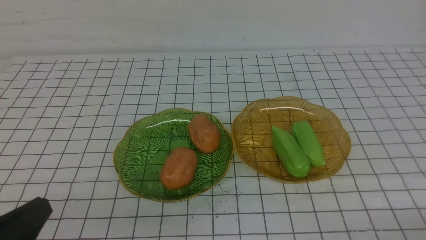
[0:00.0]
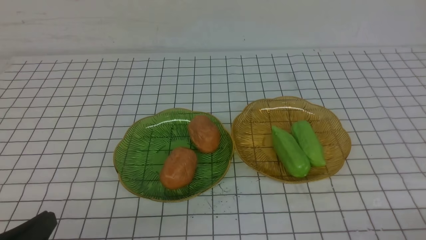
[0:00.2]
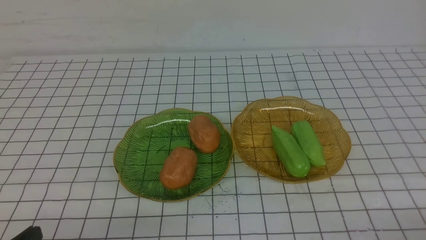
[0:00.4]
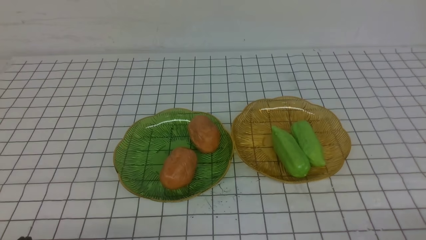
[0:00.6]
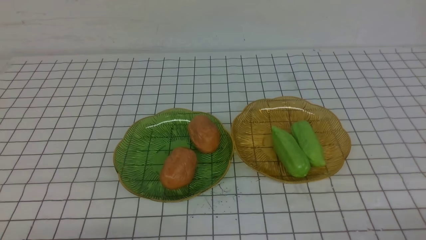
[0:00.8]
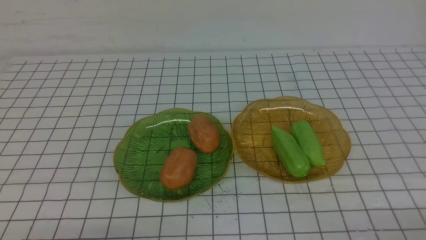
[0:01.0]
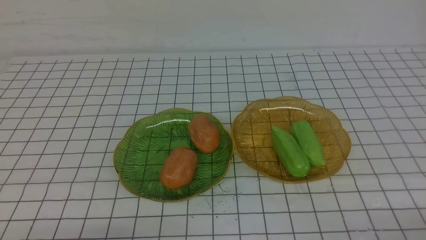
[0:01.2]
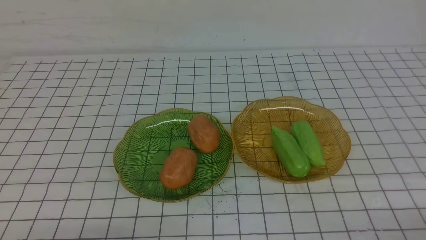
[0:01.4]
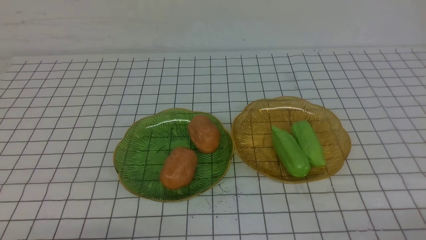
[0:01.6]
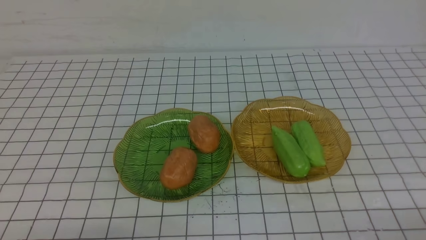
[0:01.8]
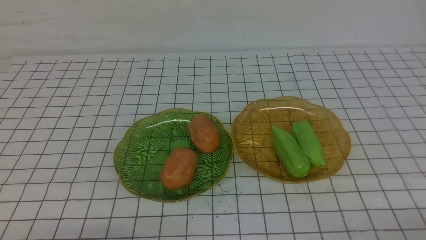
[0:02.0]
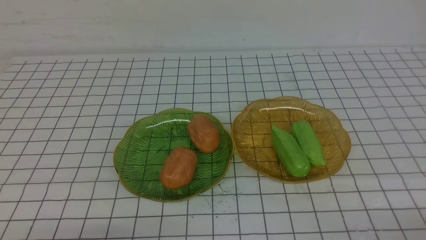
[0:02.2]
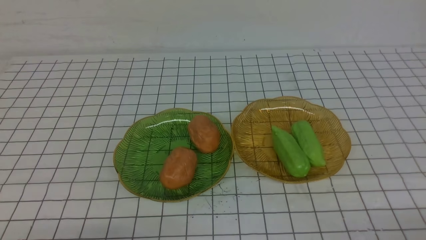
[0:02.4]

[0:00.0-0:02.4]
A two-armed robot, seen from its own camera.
0:00.0 to 0:01.2: The left gripper moves downward, approximately 10 cm.
0:01.2 to 0:02.4: The two grippers keep their place.

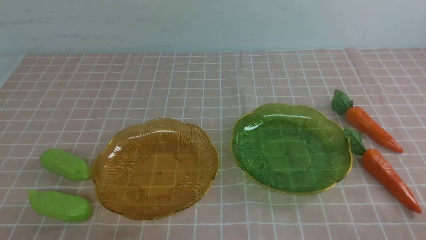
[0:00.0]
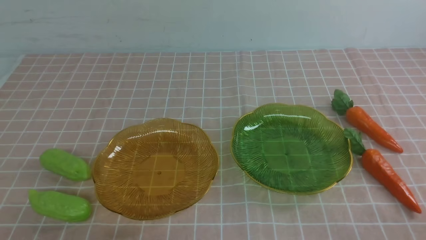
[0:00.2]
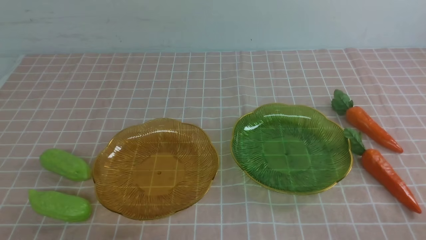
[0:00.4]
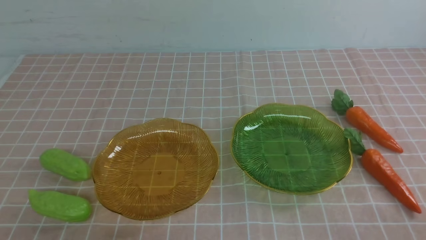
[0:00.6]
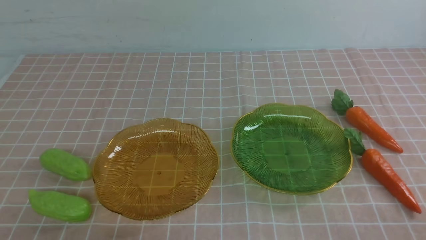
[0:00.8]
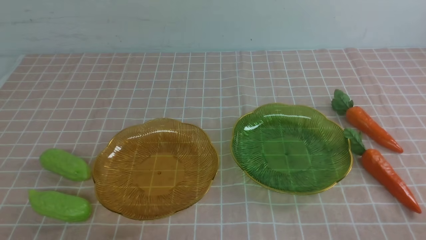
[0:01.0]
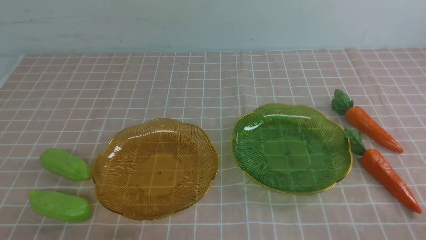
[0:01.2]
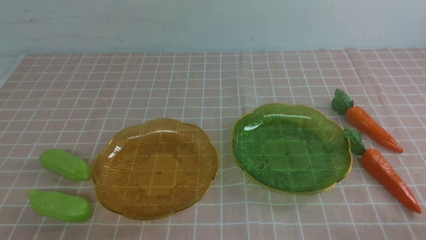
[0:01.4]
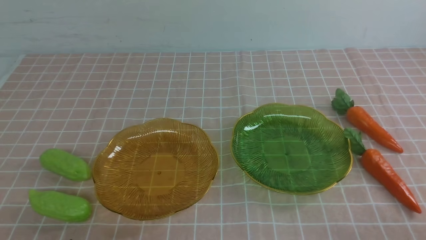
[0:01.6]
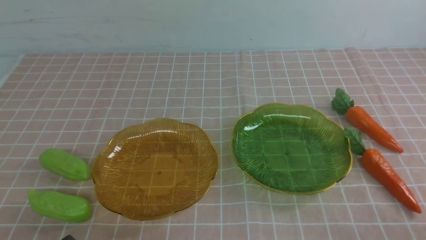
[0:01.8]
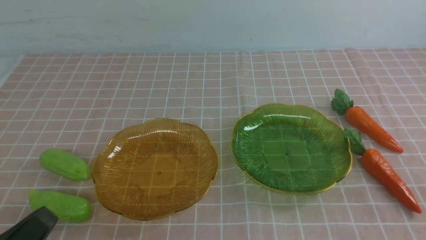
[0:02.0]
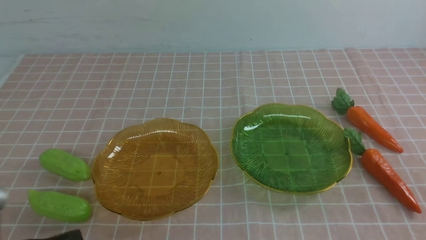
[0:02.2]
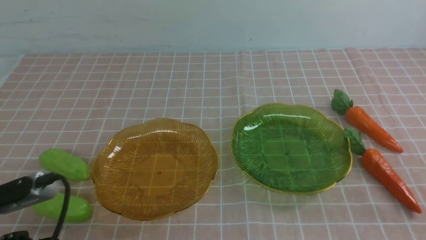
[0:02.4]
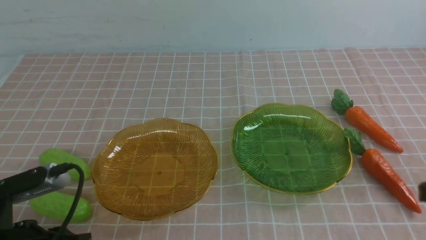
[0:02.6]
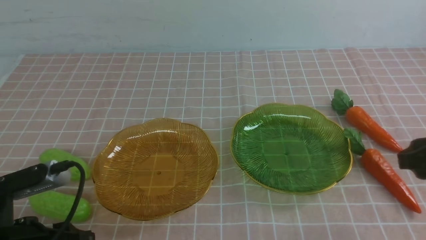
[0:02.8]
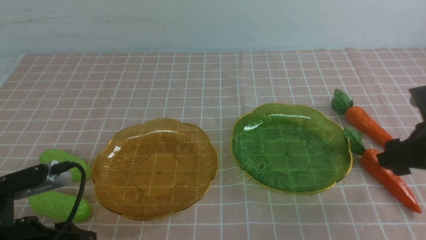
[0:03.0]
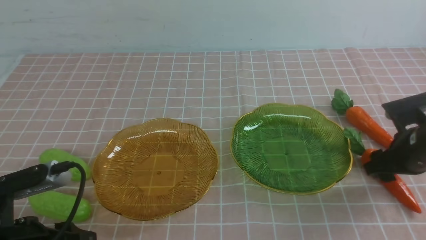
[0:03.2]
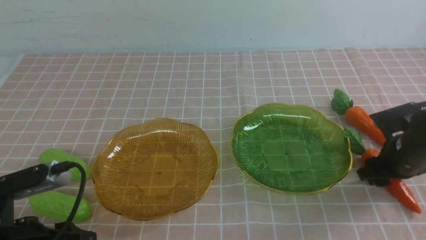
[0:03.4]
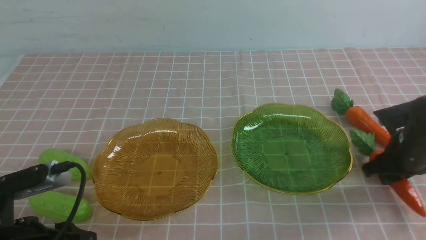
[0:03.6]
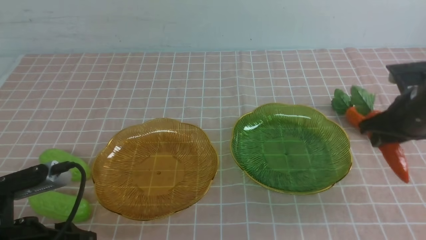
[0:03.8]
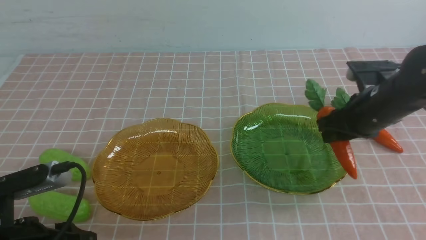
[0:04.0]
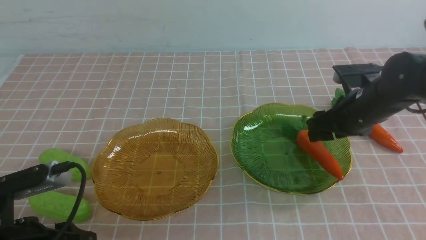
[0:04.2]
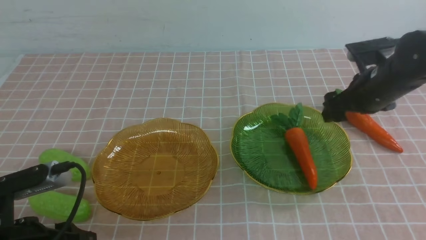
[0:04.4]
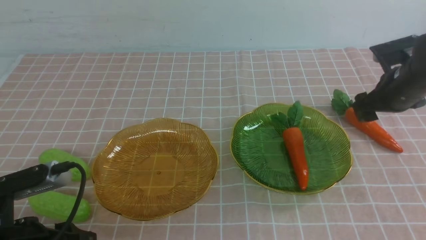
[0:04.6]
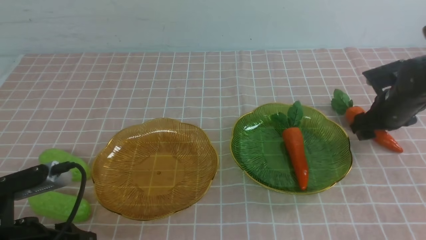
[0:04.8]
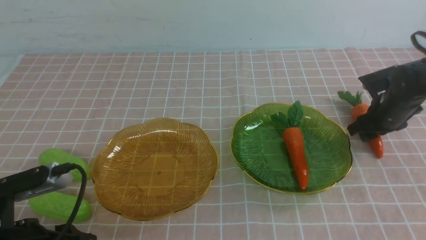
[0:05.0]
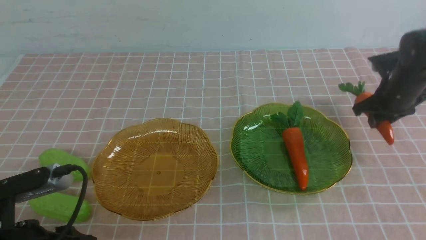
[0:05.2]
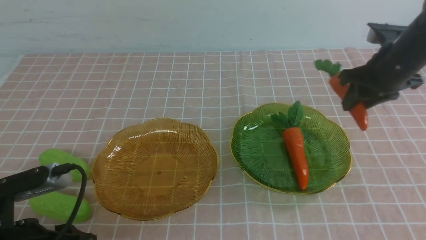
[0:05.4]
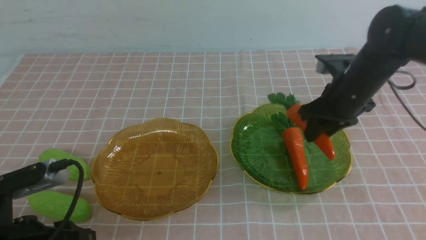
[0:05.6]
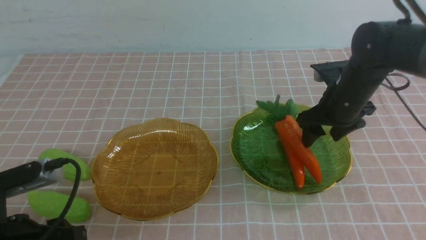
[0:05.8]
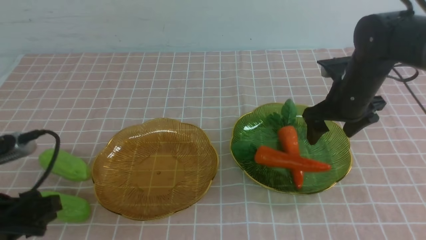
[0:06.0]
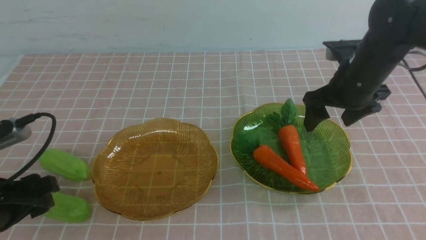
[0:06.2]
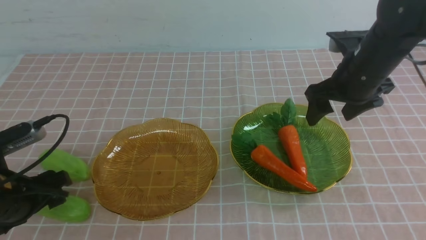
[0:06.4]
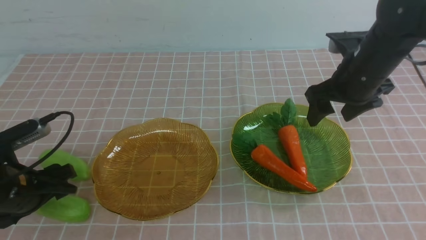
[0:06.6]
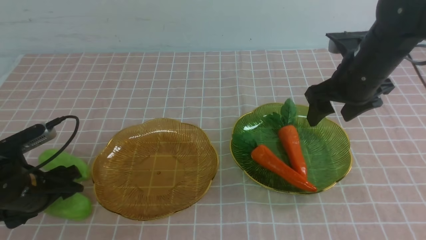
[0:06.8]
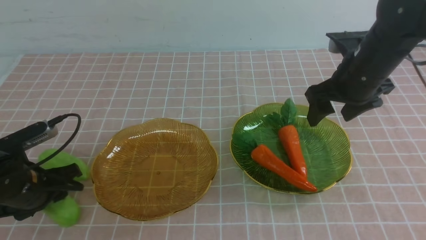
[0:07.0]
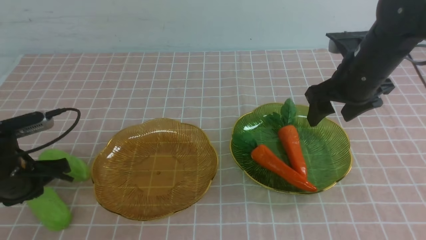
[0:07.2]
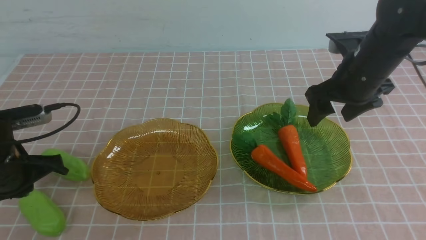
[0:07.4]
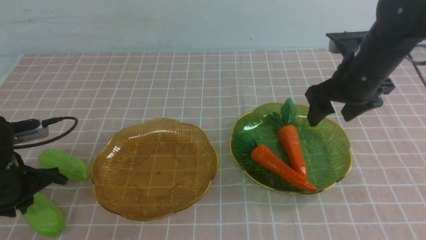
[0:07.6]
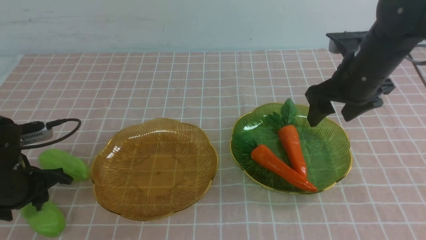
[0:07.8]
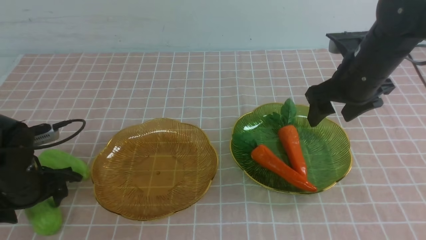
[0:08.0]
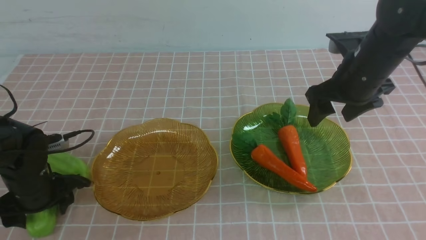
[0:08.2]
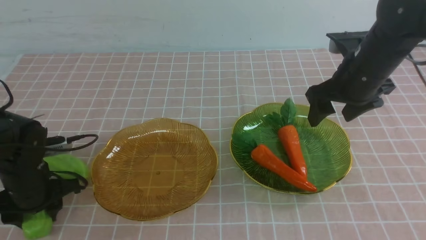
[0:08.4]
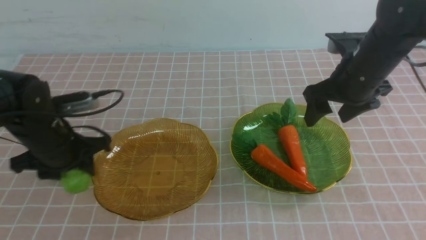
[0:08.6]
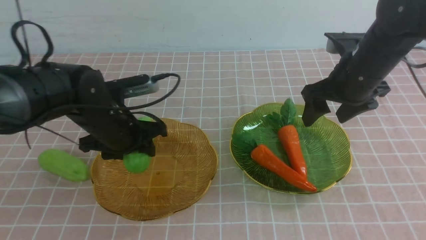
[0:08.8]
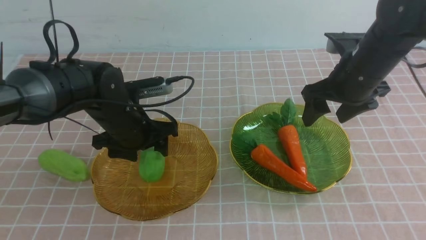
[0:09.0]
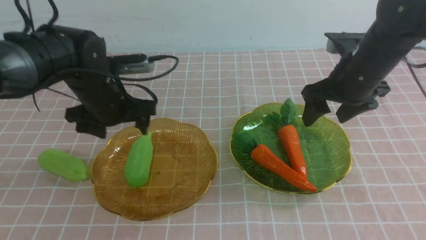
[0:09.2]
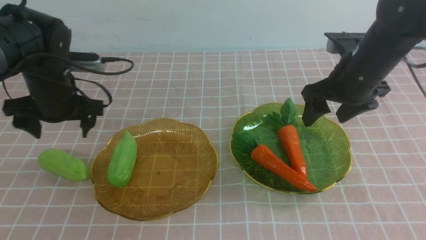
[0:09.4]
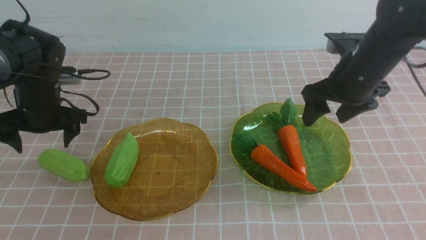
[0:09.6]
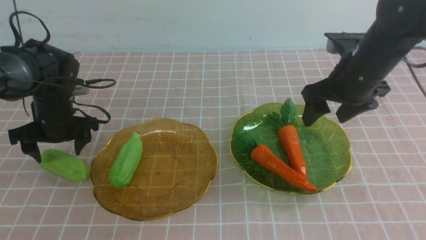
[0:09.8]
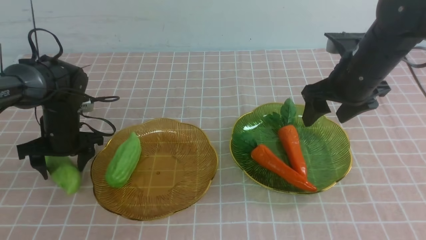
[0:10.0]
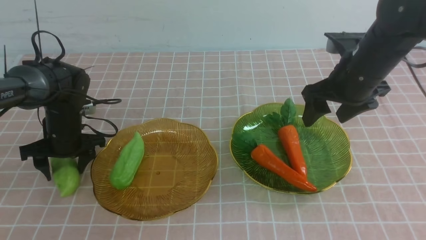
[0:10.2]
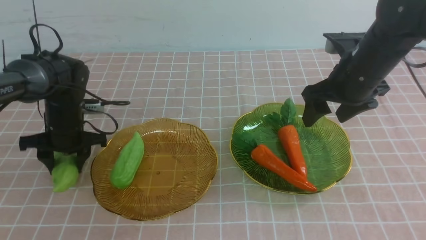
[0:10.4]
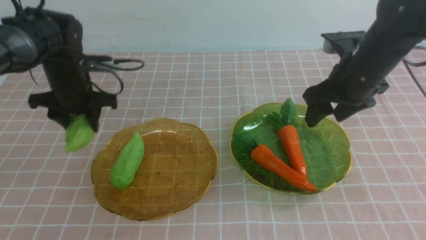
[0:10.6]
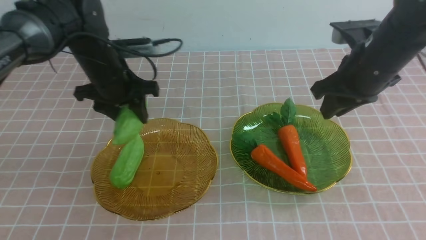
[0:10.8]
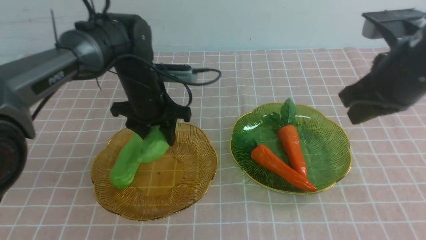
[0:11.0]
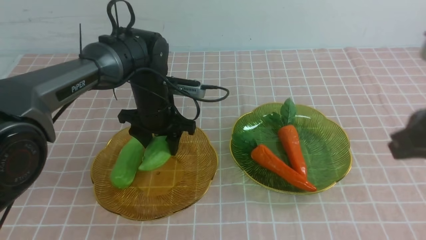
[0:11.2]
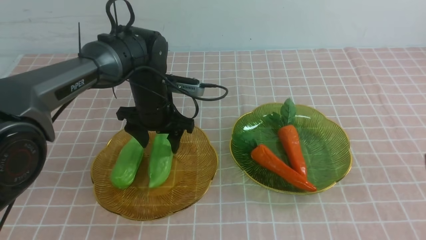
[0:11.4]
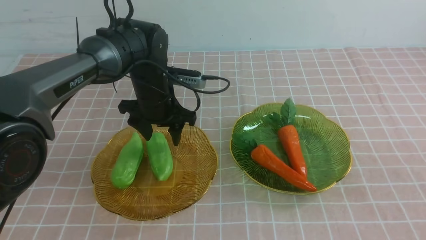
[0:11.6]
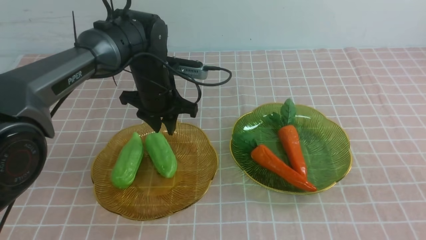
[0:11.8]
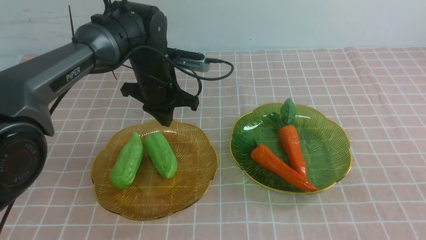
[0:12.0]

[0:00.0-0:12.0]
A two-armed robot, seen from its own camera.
Step, 0:00.0 to 0:04.0: use the right arm to grab a carrot and put it into the right plate.
Step, 0:04.4 to 0:05.8: use the right arm to grab a carrot and put it into the right plate.
Step, 0:06.0 to 0:11.6: use the left arm to grab a chayote and put it into the left plate.
0:01.6 to 0:03.0: The left gripper heads forward and upward, covering some 10 cm. The right gripper moves forward, approximately 20 cm, and opens its fingers.
0:03.0 to 0:04.4: The right gripper shifts some 15 cm forward and to the left.
0:04.4 to 0:06.0: The right gripper closes and opens again.
0:06.0 to 0:07.6: The left gripper goes about 10 cm forward, and closes.
0:07.6 to 0:09.0: The left gripper travels to the right and forward by roughly 15 cm, and opens its fingers.
0:09.0 to 0:10.4: The left gripper heads to the left and downward, covering roughly 10 cm.
0:10.4 to 0:12.0: The left gripper is displaced to the right and upward by approximately 20 cm, and closes its fingers. Meanwhile the right gripper goes about 30 cm backward, and closes up.

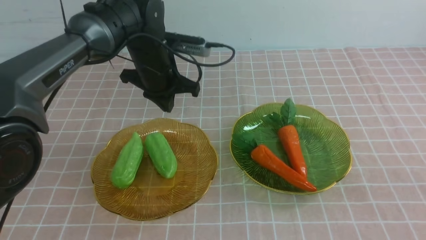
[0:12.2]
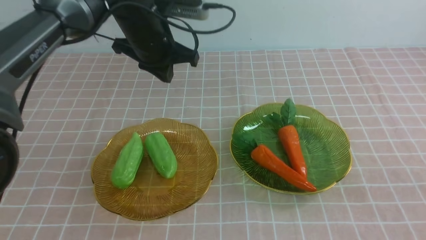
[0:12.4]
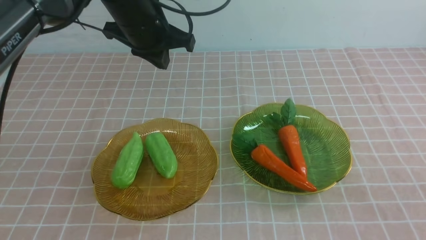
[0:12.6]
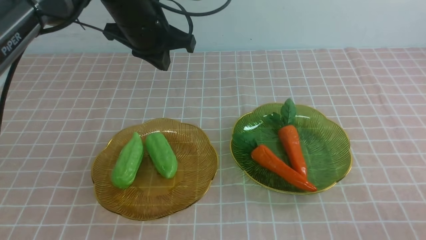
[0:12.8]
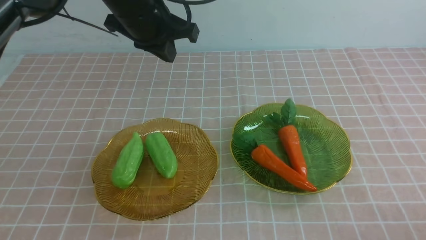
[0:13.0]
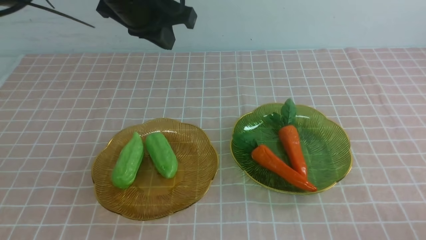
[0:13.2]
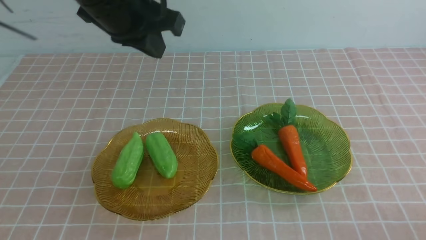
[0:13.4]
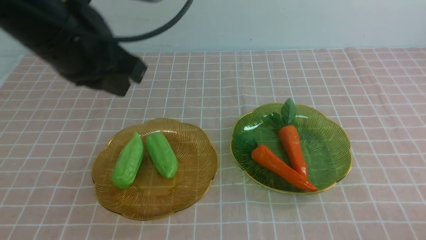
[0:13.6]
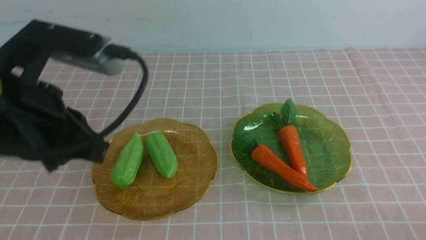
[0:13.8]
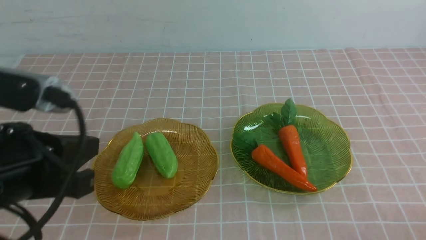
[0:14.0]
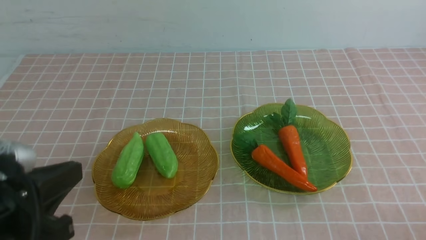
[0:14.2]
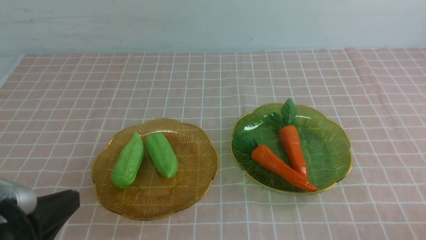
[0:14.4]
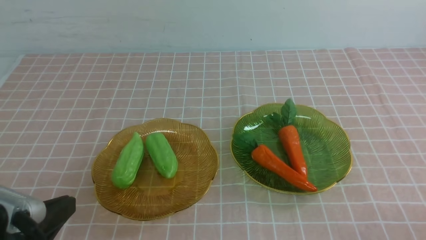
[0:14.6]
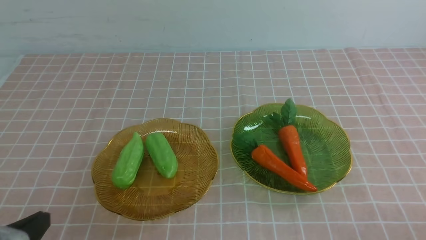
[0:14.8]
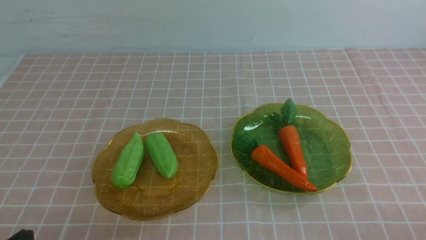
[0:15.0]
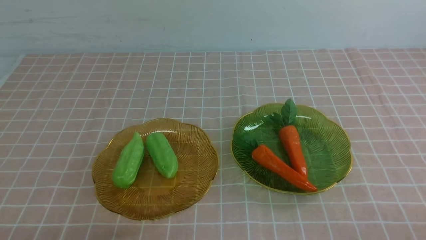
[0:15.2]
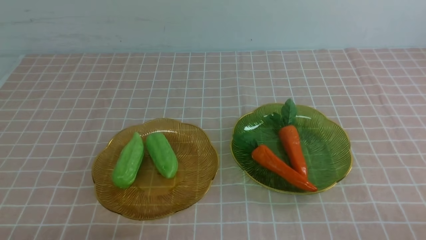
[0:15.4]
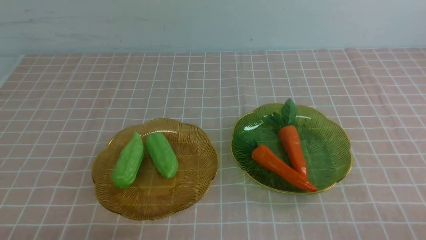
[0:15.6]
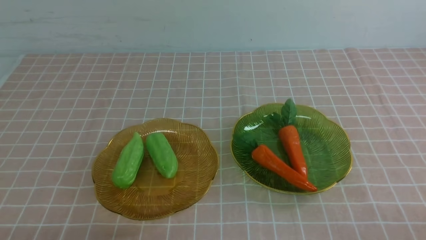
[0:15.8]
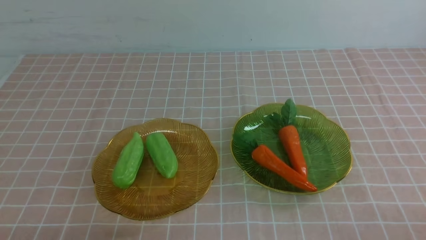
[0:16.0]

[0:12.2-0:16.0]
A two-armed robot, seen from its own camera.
0:12.2 to 0:13.4: The left gripper travels upward and backward by about 15 cm; the right gripper travels downward by about 10 cm.
0:13.4 to 0:14.8: The left gripper heads backward, downward and to the left, covering approximately 35 cm.
0:14.8 to 0:16.0: The left gripper goes about 10 cm downward.
